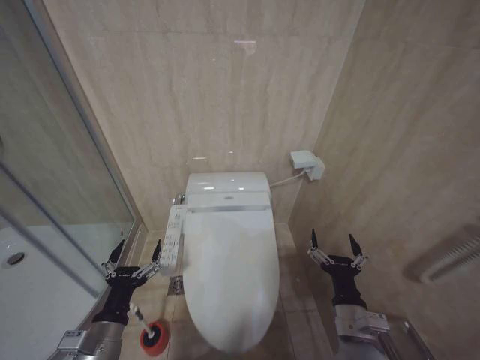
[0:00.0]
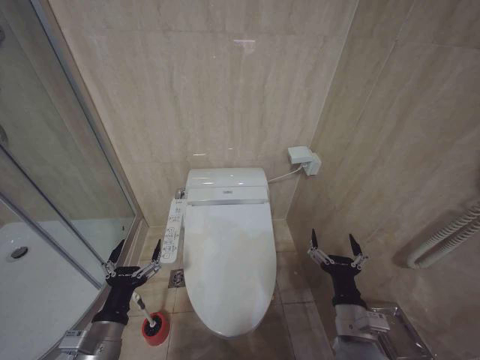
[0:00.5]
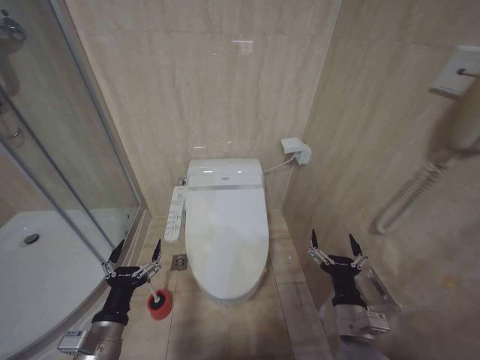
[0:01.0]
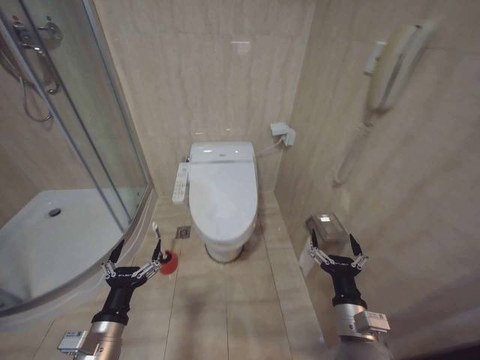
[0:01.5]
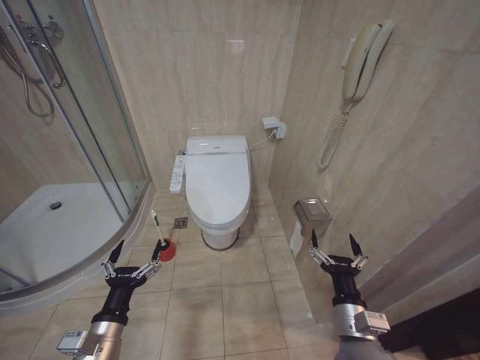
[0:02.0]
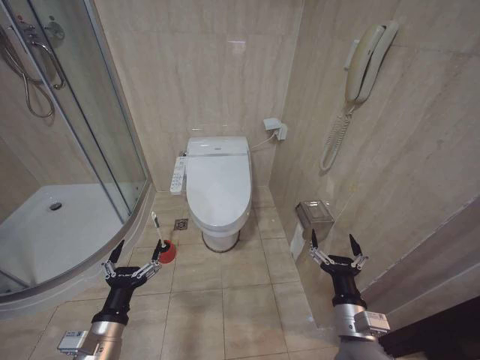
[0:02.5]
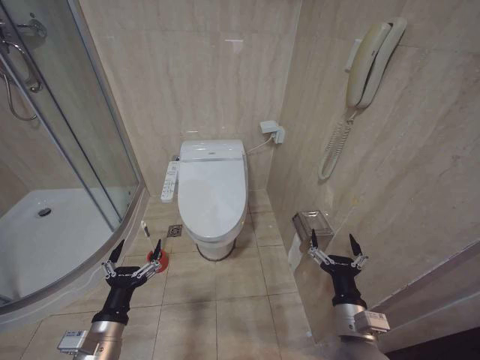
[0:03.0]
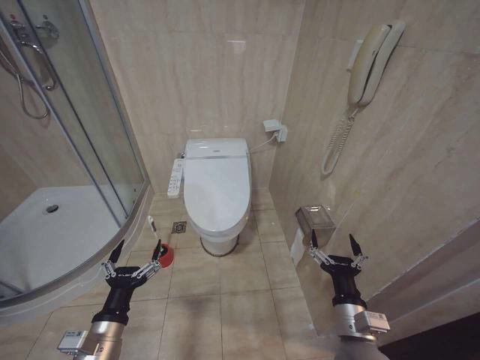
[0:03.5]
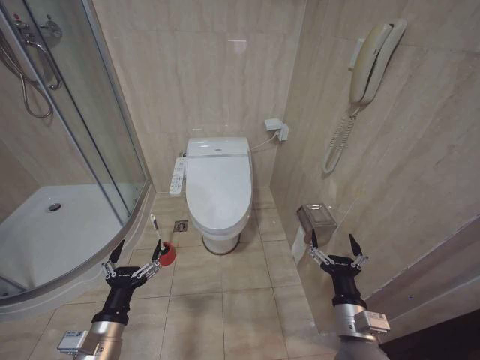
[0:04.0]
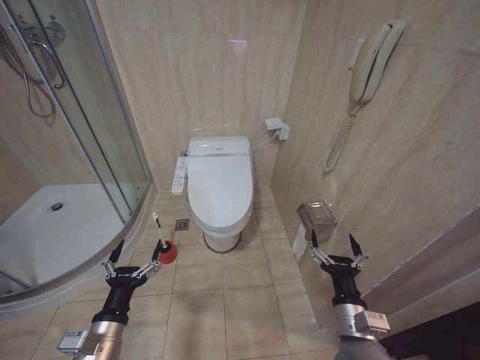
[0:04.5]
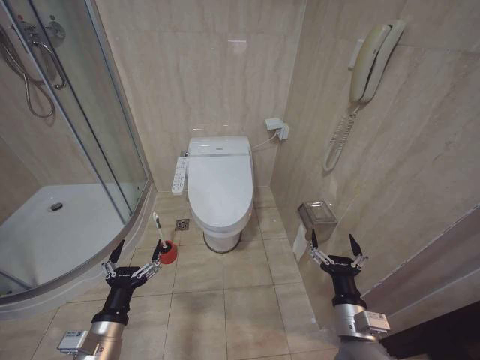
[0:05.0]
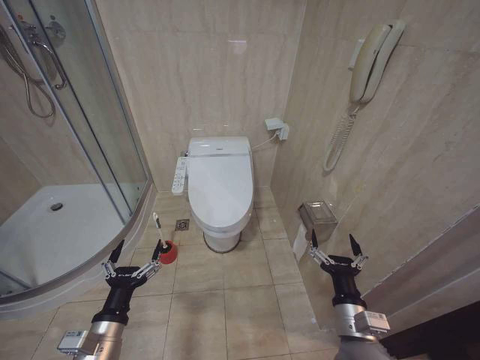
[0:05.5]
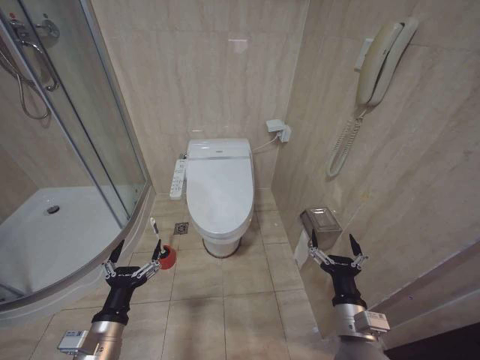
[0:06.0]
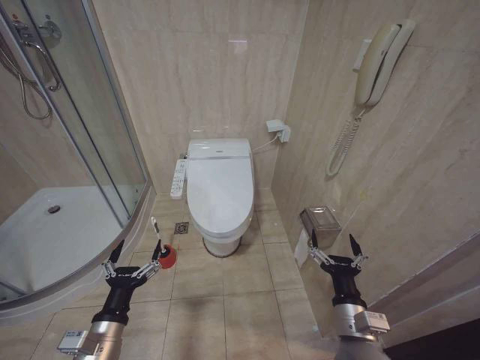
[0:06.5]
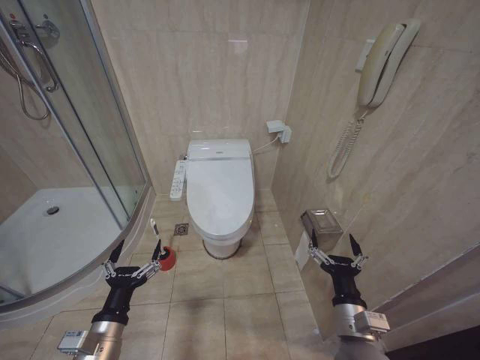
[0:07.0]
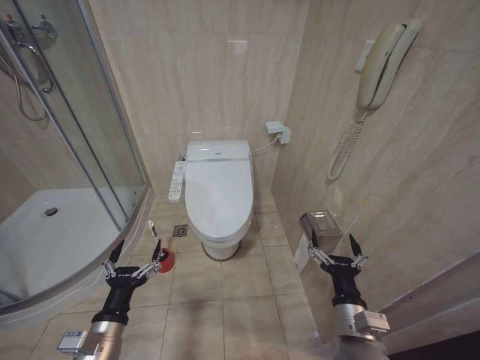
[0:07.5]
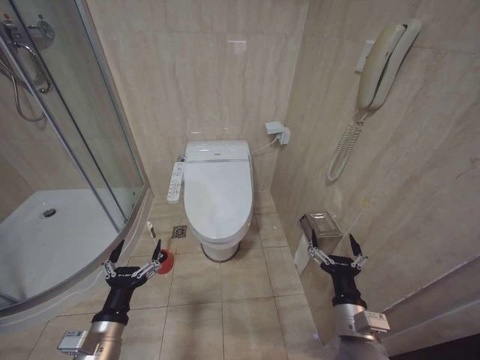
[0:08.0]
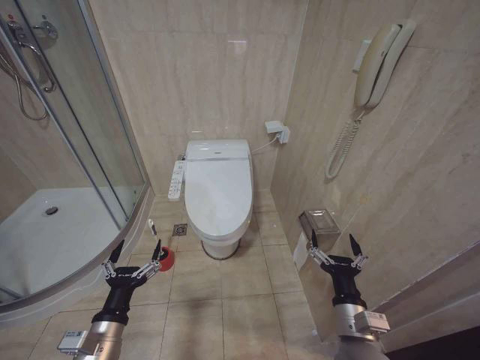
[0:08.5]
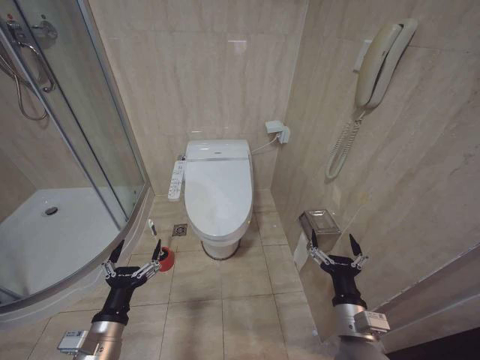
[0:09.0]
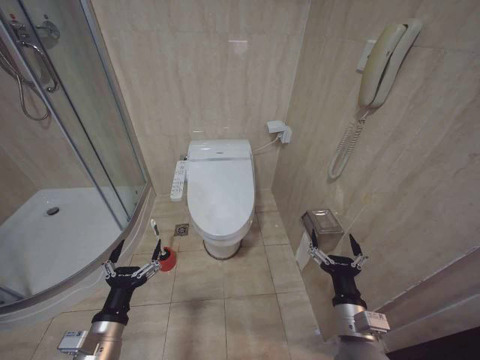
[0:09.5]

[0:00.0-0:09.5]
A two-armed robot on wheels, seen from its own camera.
Task of the whole recording: Open the toilet lid, clean the toilet bowl with a toilet brush, close the toilet lid, and flush.
0:02.0 to 0:09.5: Neither gripper changes place.

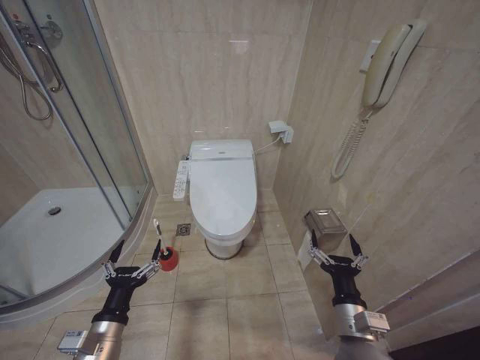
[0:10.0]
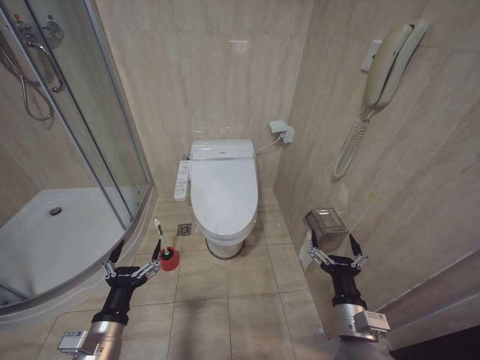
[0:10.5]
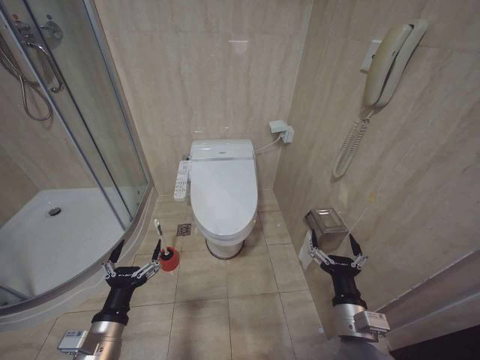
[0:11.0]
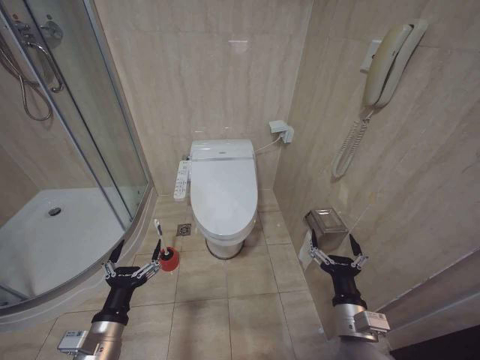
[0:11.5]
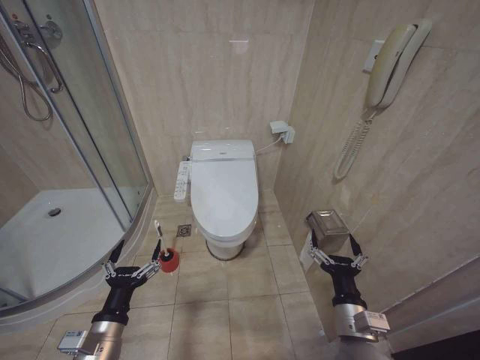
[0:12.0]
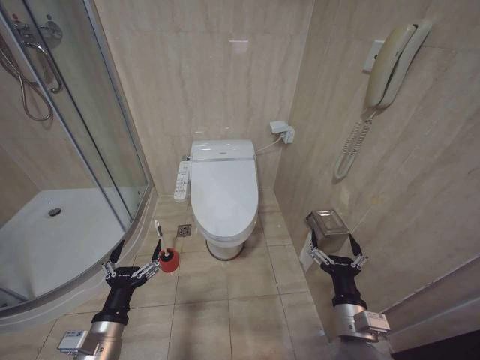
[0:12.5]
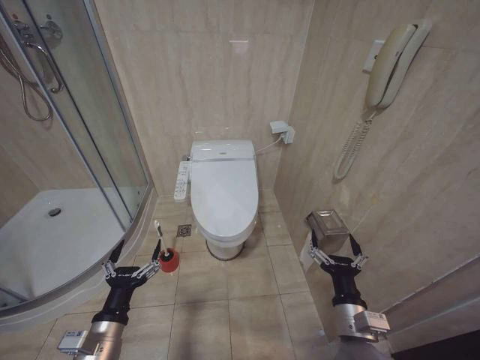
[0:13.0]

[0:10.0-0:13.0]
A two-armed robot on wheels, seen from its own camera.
Task of the whole recording: Open the toilet lid, clean the toilet bowl with a toilet brush, close the toilet lid, and flush.
0:10.0 to 0:13.0: Neither gripper changes place.

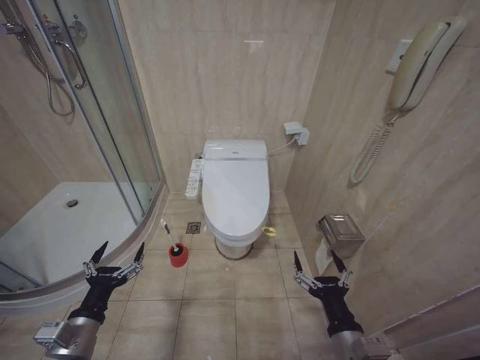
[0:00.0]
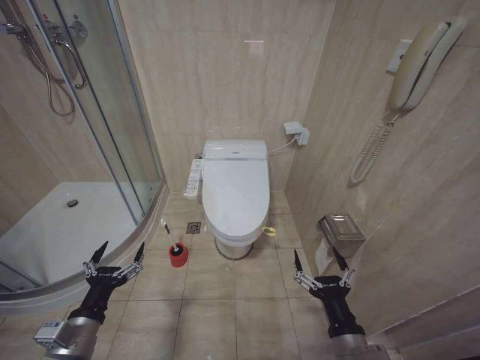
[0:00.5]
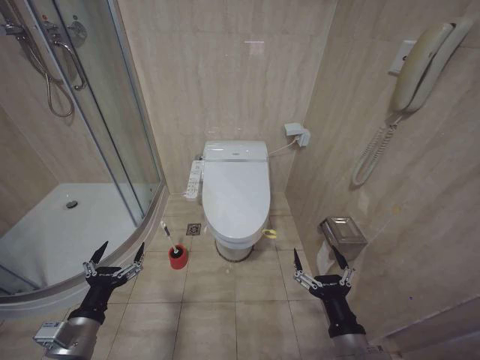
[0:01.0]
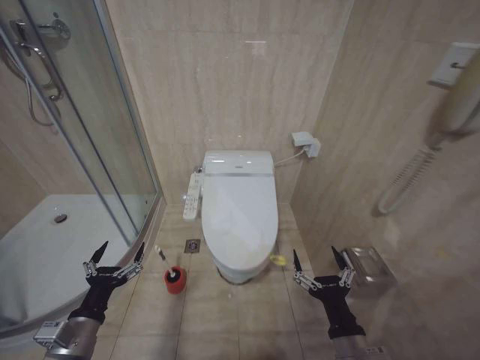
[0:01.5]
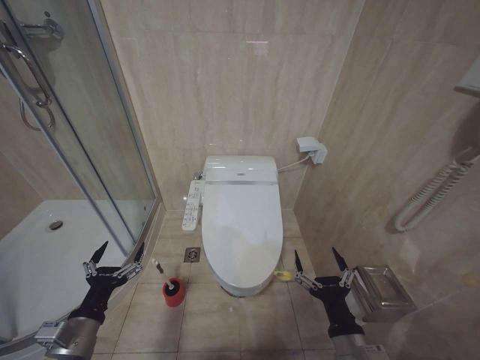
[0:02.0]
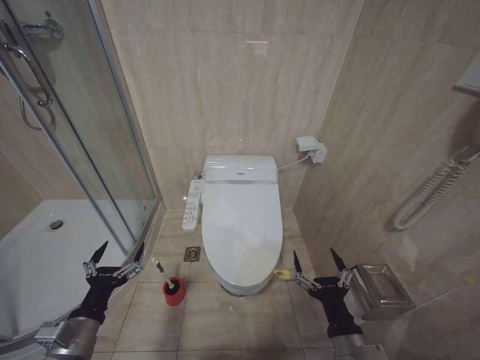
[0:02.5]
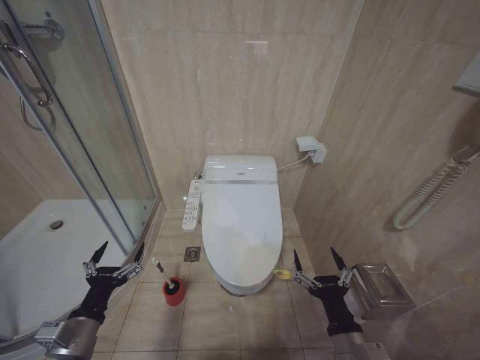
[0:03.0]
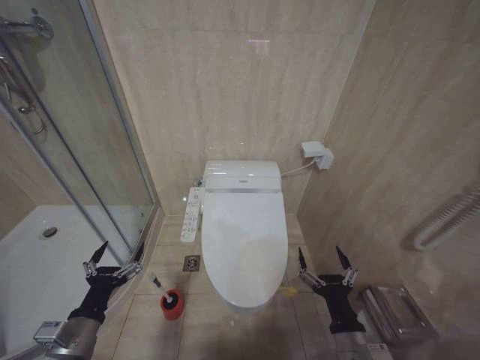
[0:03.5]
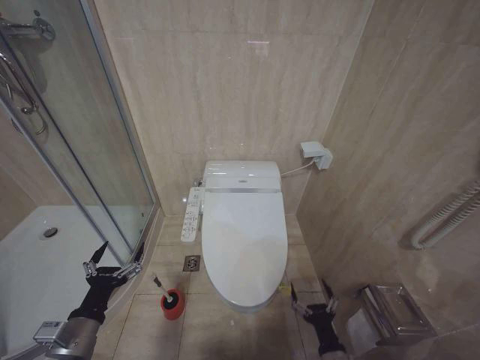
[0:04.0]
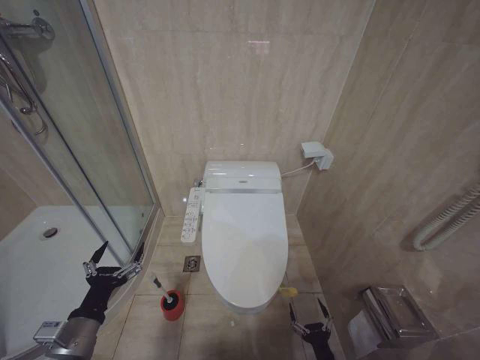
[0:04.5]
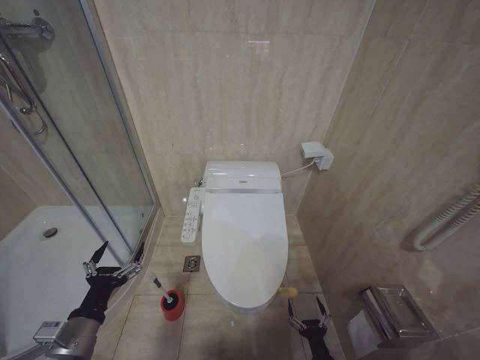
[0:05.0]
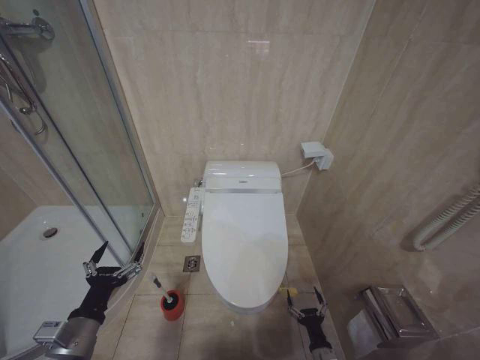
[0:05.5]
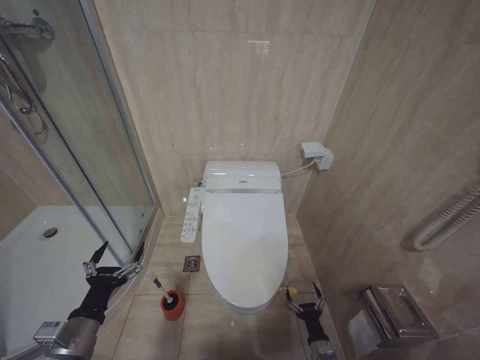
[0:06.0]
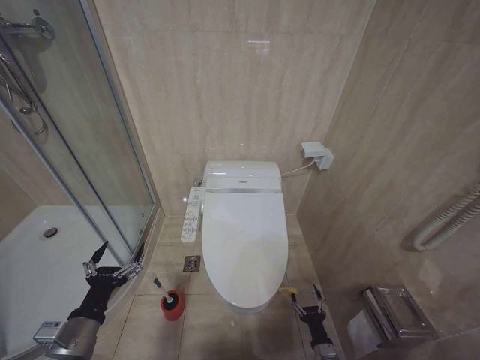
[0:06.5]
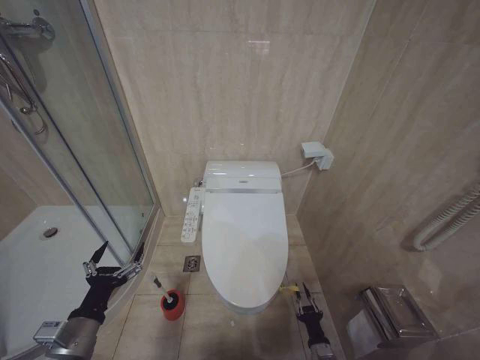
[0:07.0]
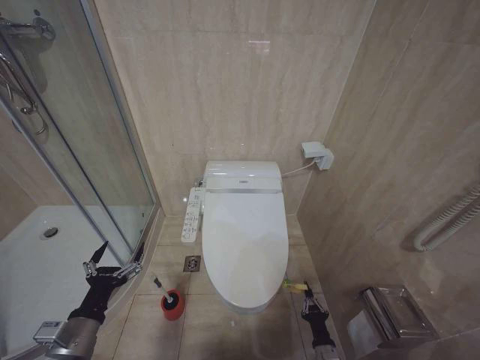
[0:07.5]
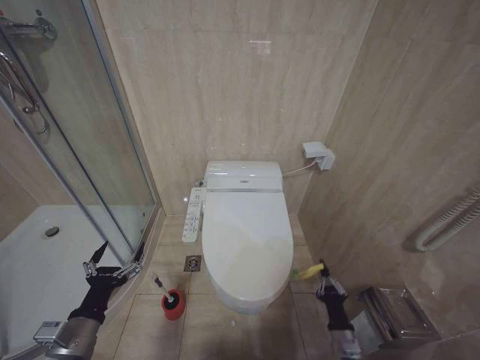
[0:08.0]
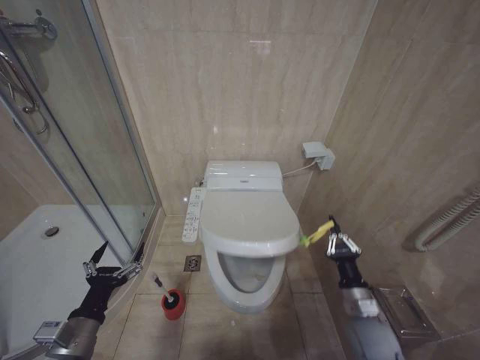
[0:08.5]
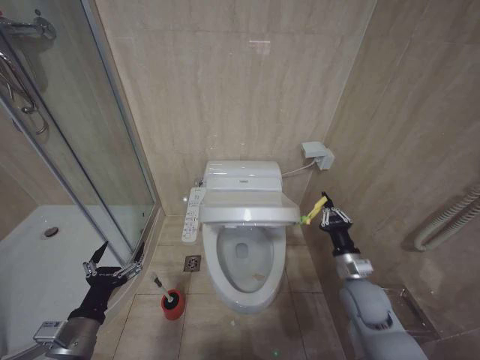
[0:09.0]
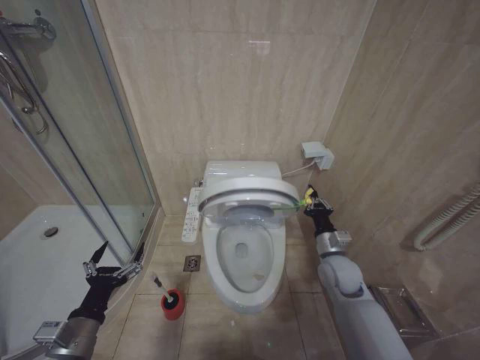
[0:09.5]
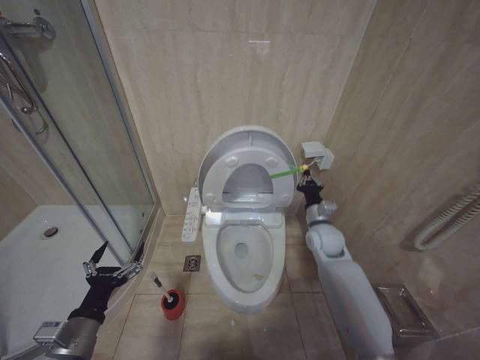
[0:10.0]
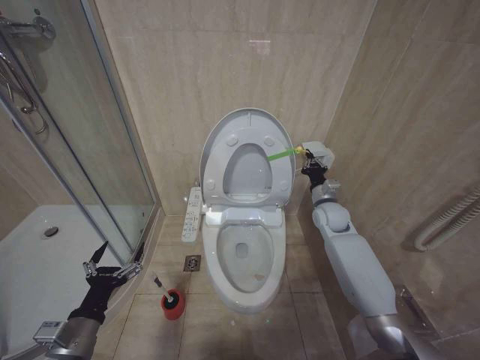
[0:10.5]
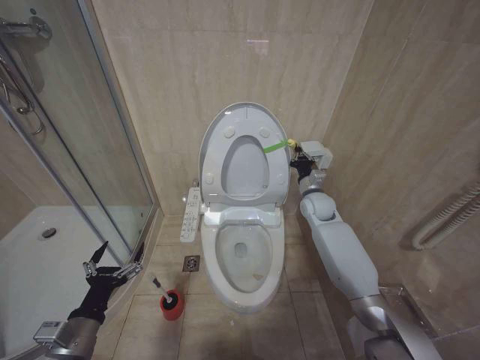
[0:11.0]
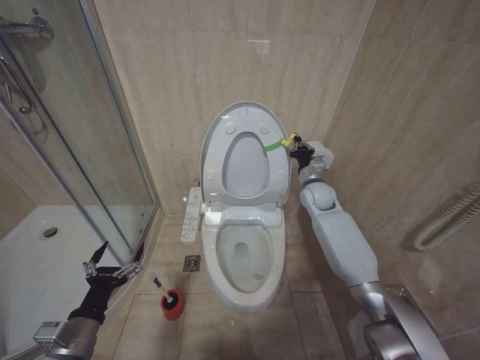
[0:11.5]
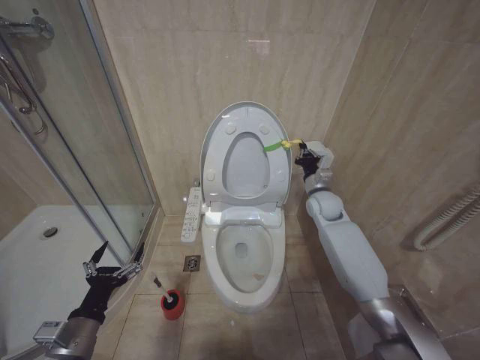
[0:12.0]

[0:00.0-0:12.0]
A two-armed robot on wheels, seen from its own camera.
Task of the whole recording: Open the toilet lid, clean the toilet bowl with a toilet brush, close the toilet lid, and flush.
0:02.0 to 0:04.0: The right gripper travels downward by approximately 15 cm.
0:04.0 to 0:06.0: The right gripper is displaced downward by roughly 15 cm.
0:06.0 to 0:08.0: The right gripper heads upward, covering approximately 10 cm, and closes.
0:08.0 to 0:10.0: The right gripper shifts about 35 cm forward and upward.
0:10.0 to 0:12.0: The right gripper heads forward and upward, covering about 10 cm.

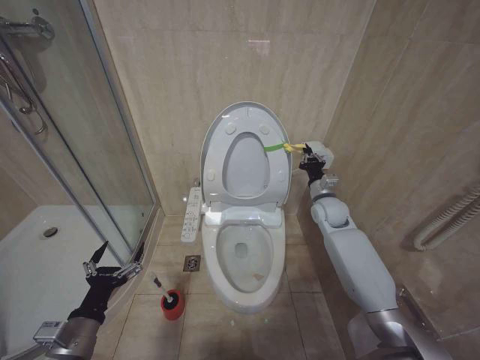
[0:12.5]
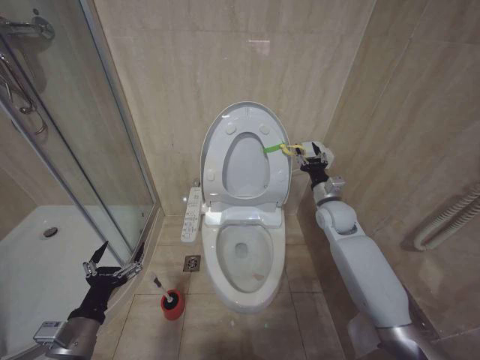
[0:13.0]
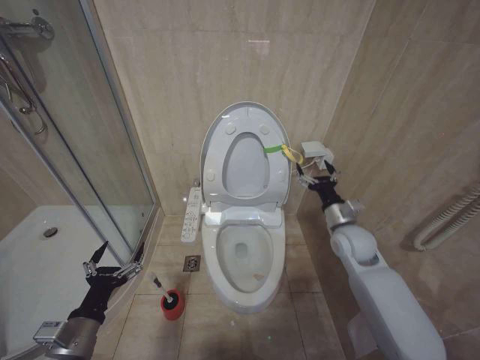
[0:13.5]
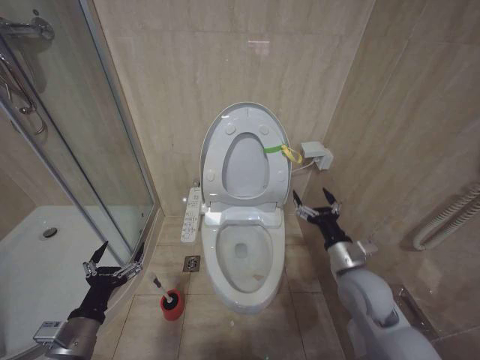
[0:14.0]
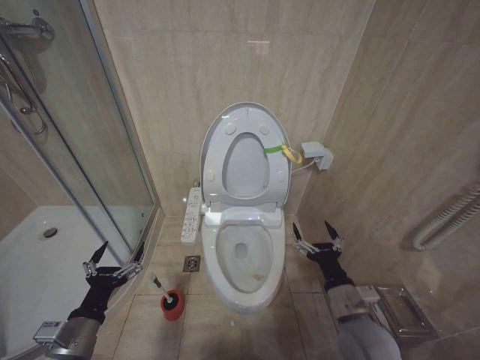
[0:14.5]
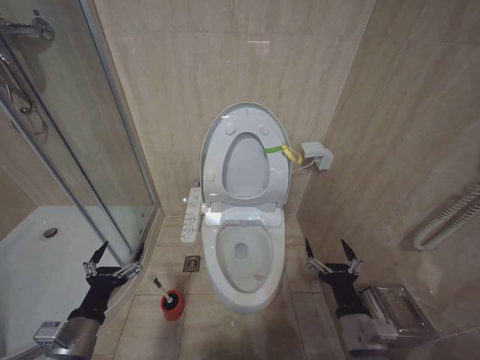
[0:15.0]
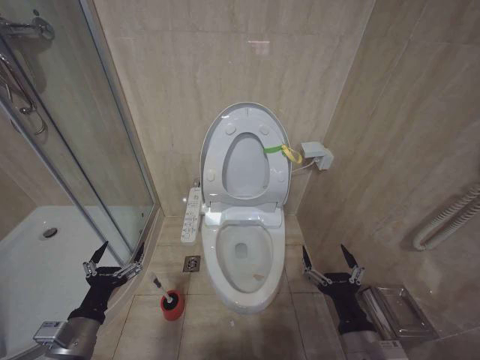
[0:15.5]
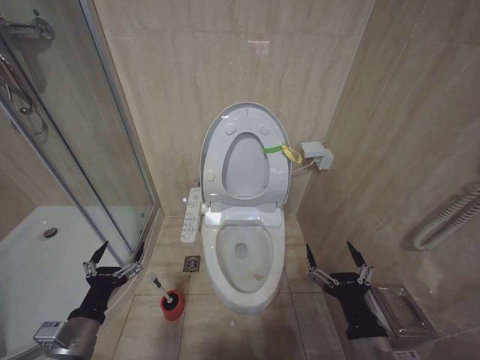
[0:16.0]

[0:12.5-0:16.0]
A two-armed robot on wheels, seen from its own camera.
Task of the whole recording: Open the toilet lid, clean the toilet bowl with a toilet brush, close the toilet lid, and flush.
0:12.5 to 0:14.5: The right gripper is displaced backward by some 30 cm, and opens its fingers.
0:14.5 to 0:16.0: The right gripper moves backward, about 10 cm.
